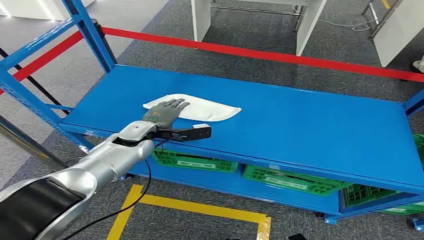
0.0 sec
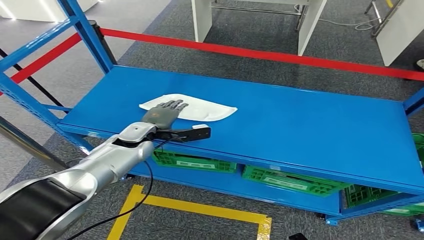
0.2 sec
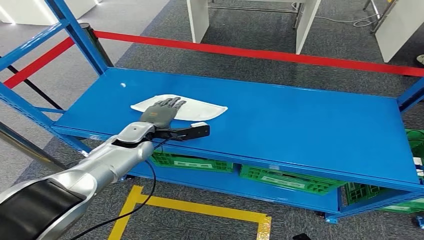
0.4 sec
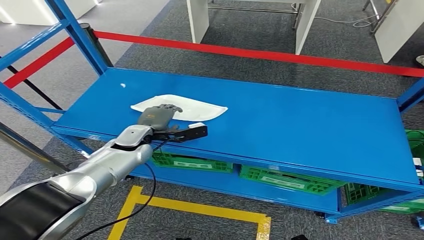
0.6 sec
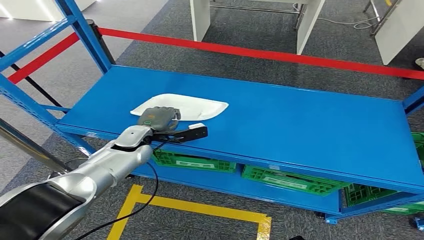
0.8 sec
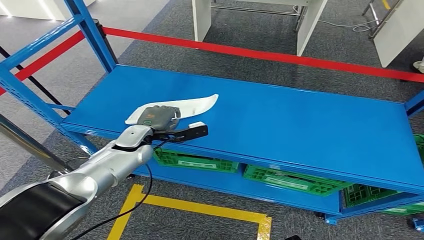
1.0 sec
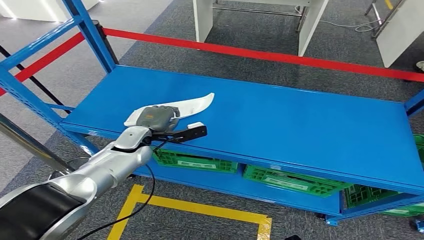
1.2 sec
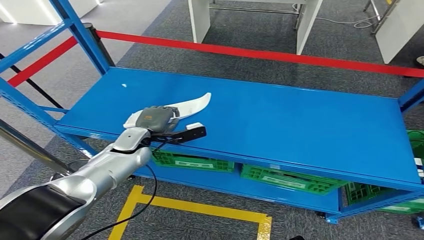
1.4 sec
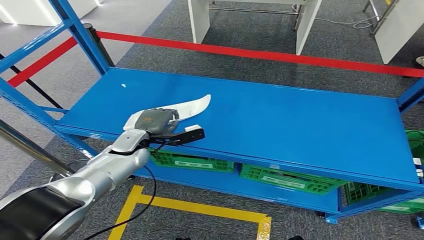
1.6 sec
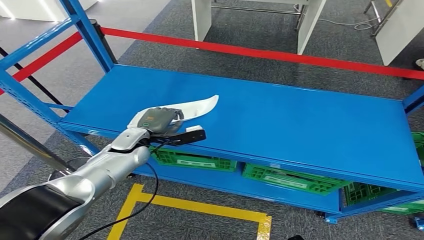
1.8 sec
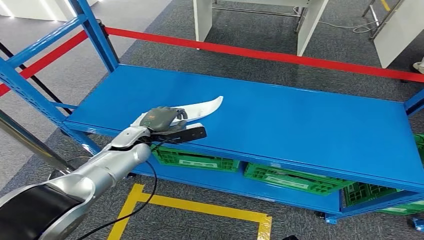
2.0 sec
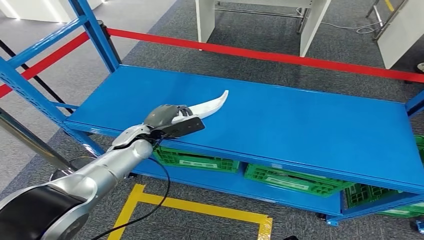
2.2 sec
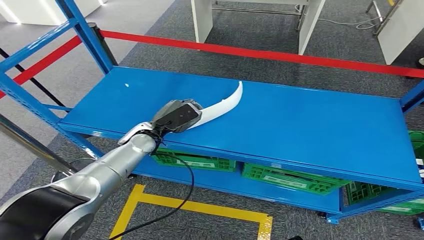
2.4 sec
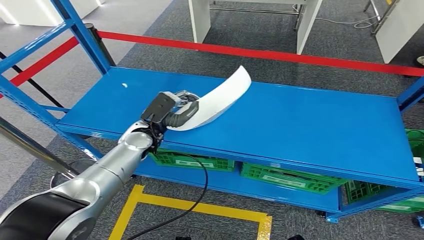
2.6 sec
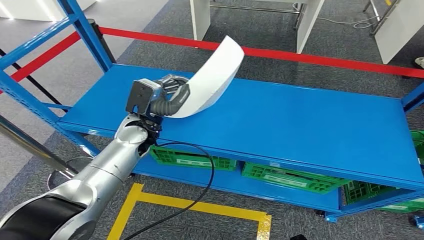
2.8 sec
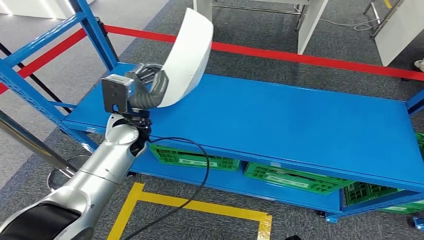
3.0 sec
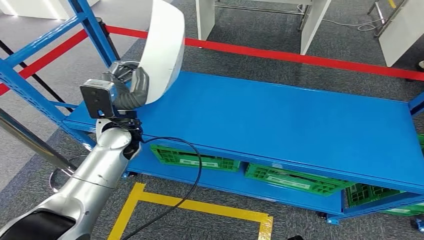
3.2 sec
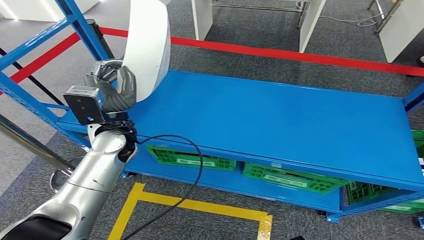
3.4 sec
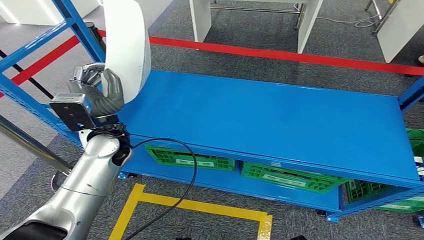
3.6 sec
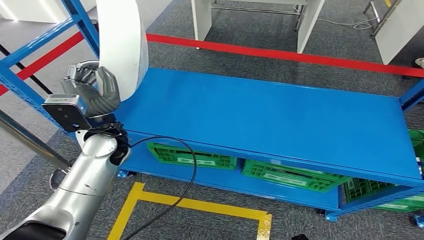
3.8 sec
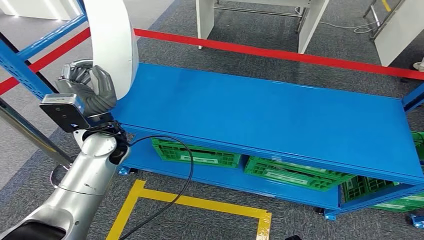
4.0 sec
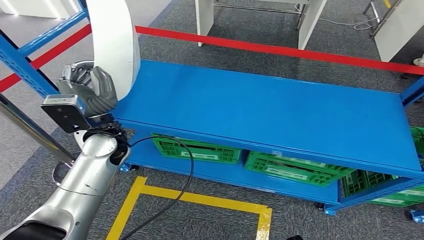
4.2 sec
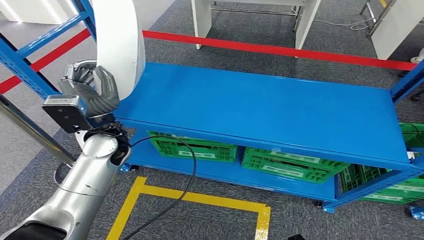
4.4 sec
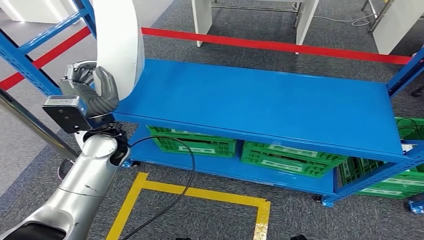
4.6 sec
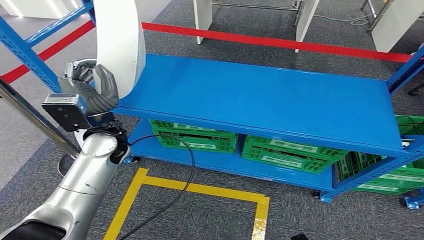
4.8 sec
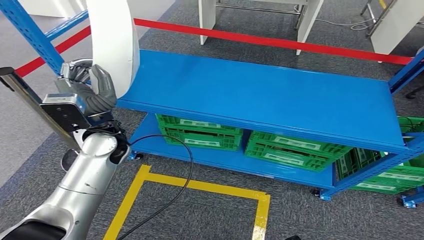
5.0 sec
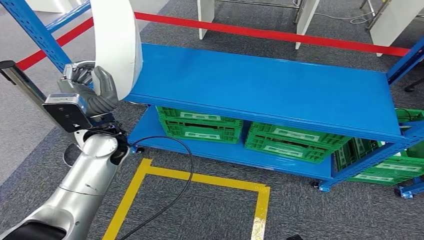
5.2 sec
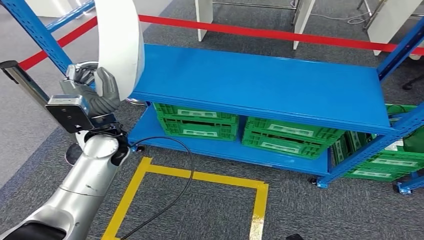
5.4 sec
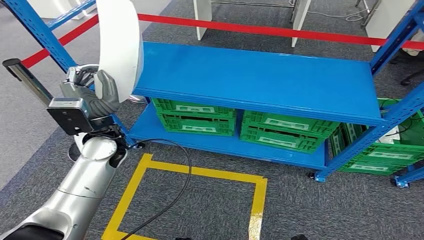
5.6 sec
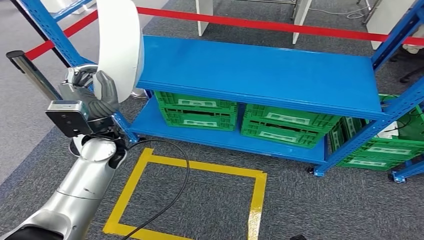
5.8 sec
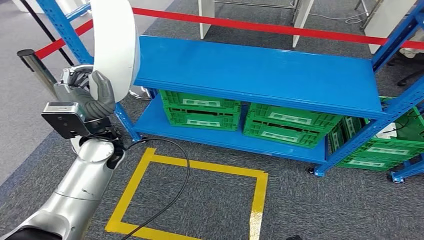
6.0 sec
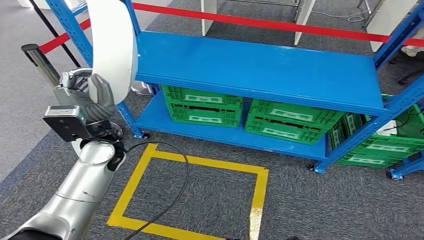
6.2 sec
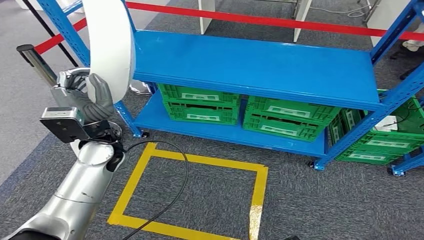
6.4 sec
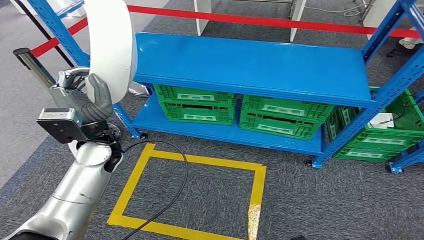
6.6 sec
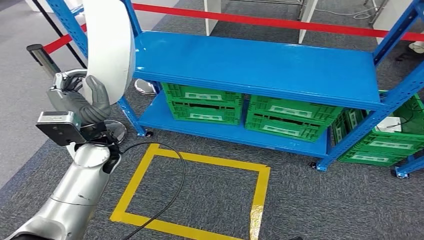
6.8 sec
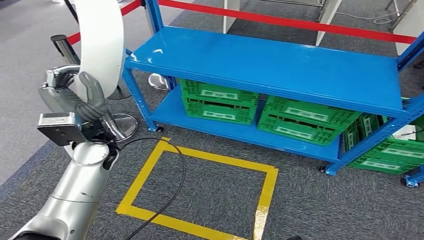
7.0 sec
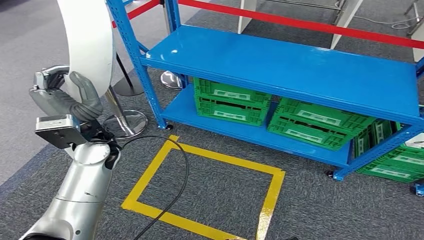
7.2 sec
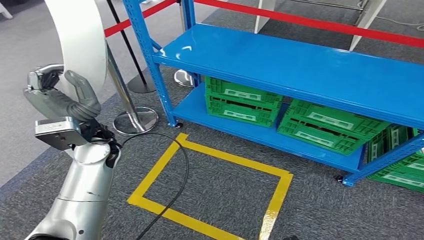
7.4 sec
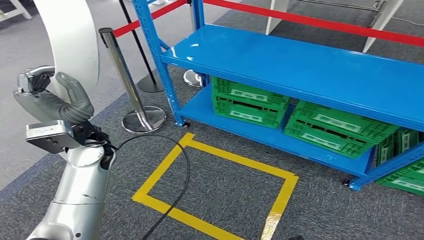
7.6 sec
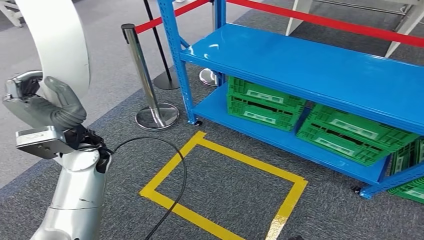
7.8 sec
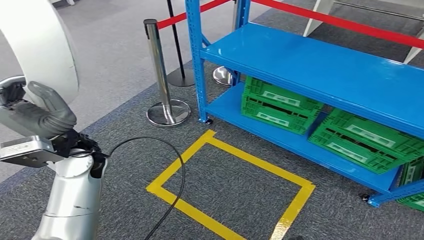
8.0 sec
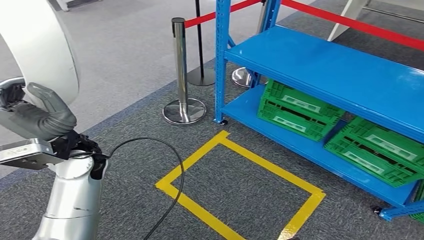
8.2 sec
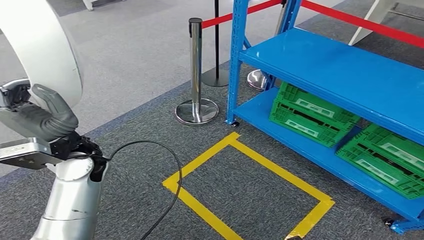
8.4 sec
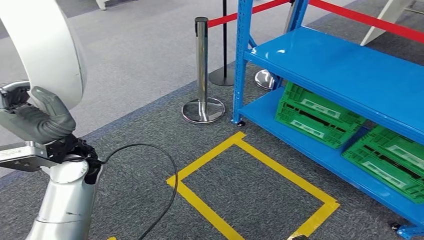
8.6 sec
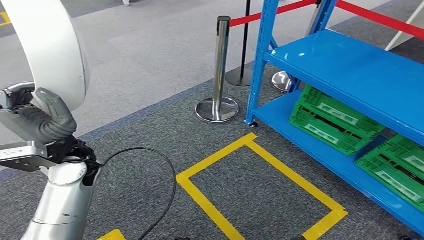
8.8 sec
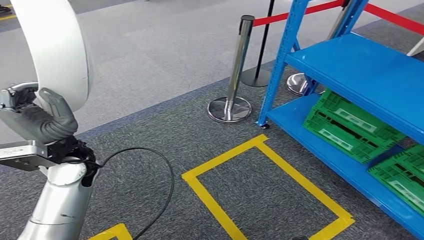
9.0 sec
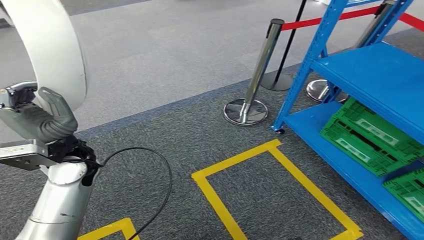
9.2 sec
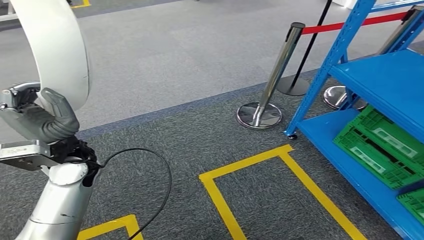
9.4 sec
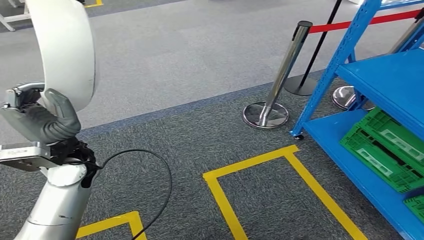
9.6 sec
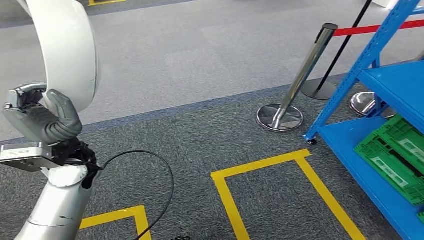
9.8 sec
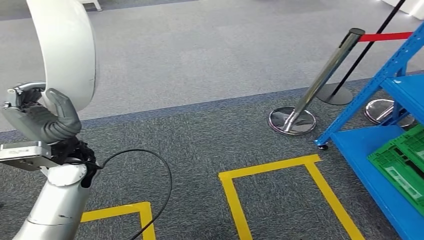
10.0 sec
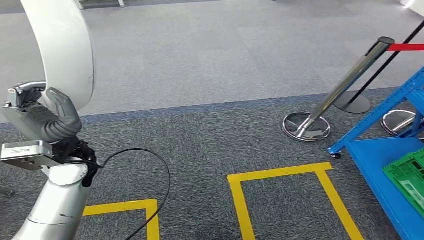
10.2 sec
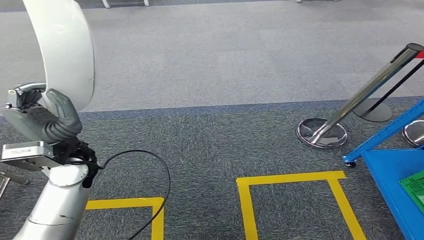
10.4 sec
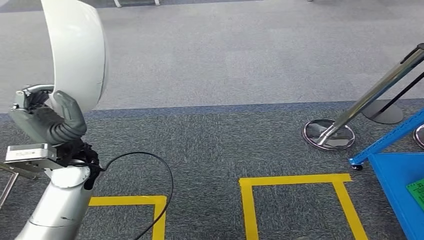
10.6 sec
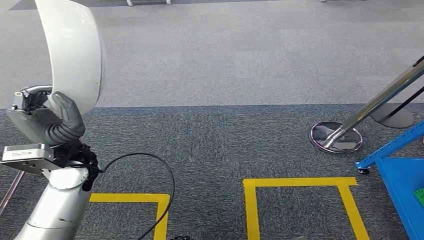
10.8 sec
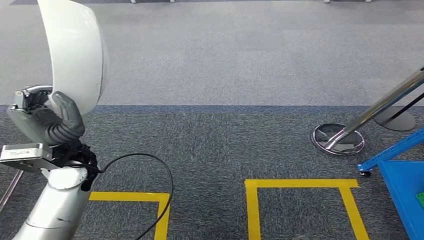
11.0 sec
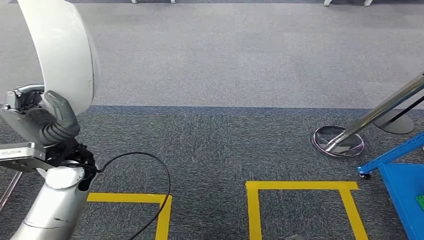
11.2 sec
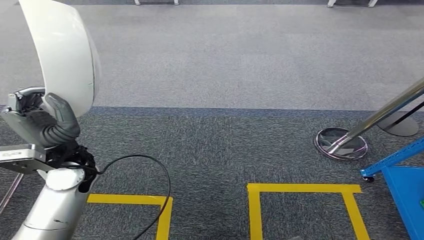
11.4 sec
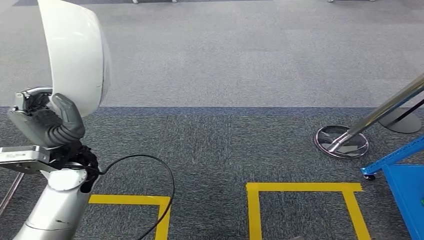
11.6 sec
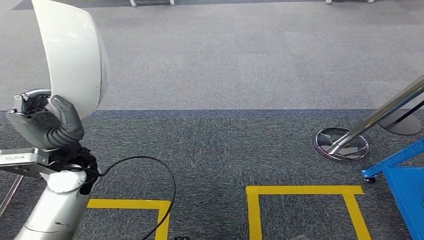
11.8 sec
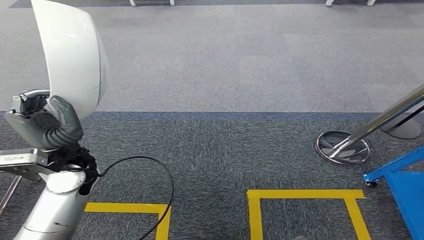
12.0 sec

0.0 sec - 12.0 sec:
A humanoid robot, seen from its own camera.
Step, 0.0 sec - 2.8 sec: Pick up the small component from the shelf.

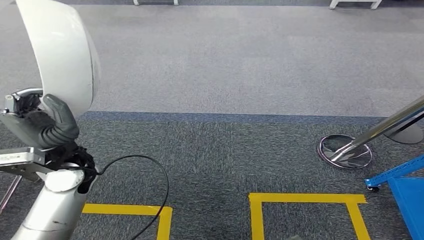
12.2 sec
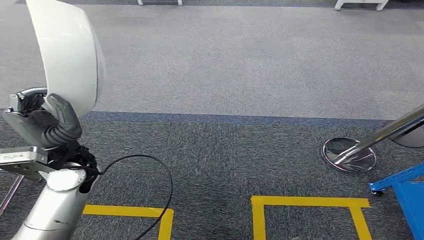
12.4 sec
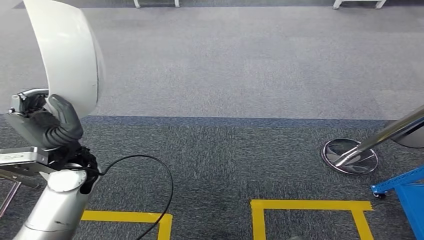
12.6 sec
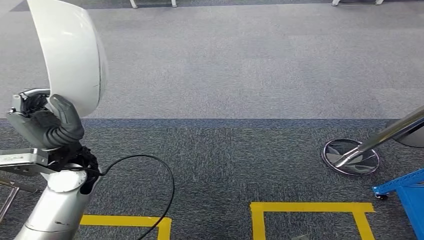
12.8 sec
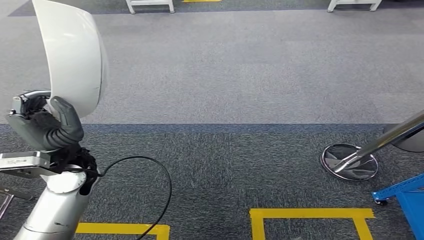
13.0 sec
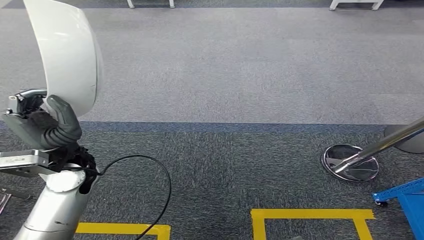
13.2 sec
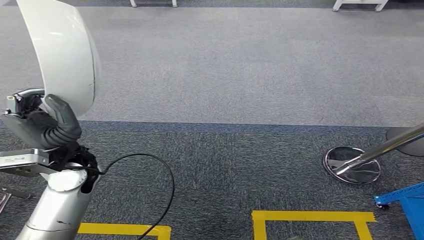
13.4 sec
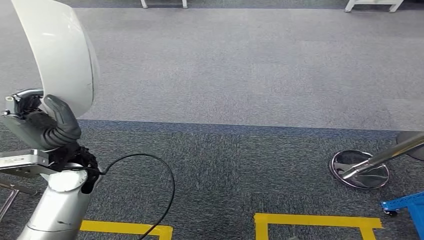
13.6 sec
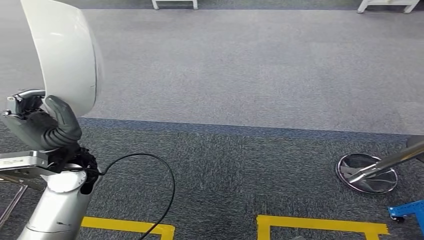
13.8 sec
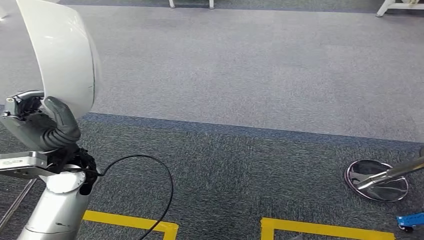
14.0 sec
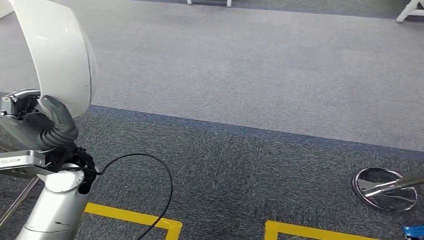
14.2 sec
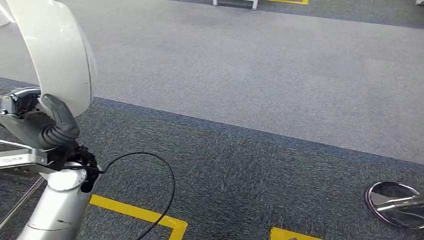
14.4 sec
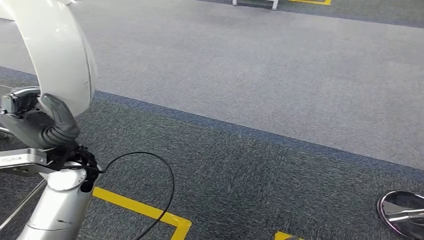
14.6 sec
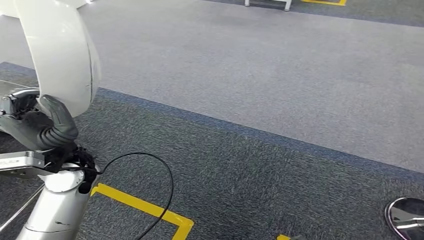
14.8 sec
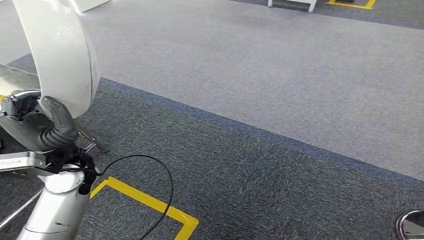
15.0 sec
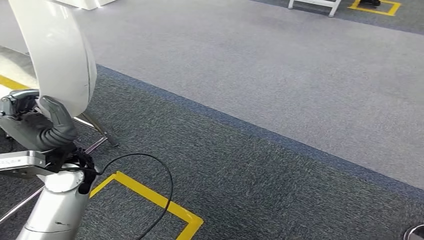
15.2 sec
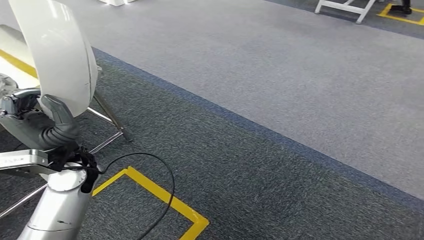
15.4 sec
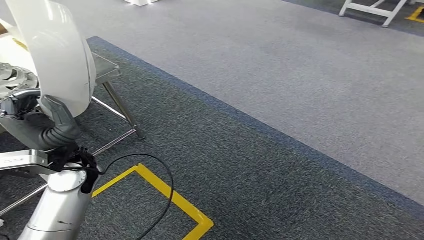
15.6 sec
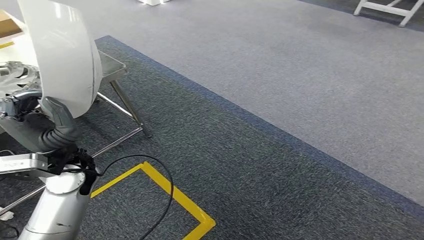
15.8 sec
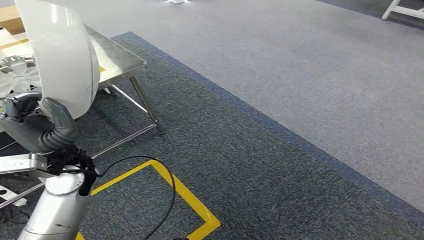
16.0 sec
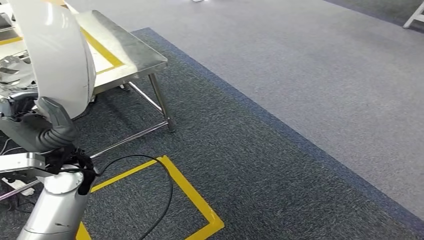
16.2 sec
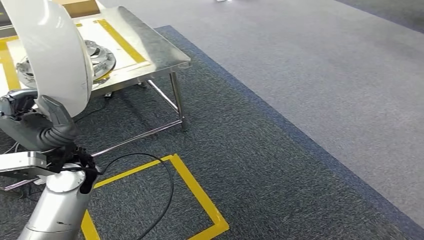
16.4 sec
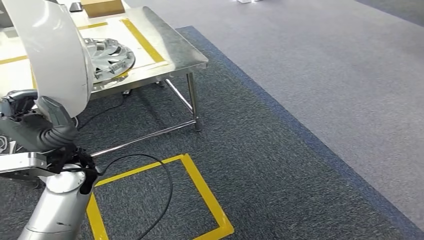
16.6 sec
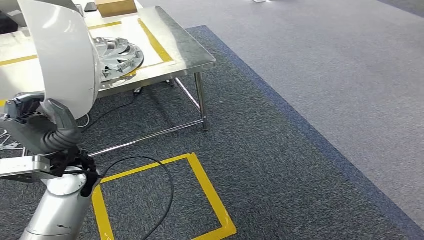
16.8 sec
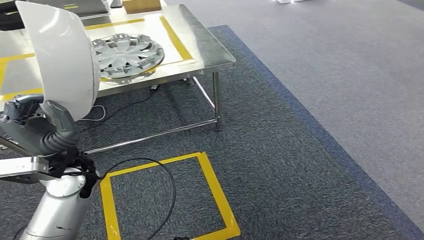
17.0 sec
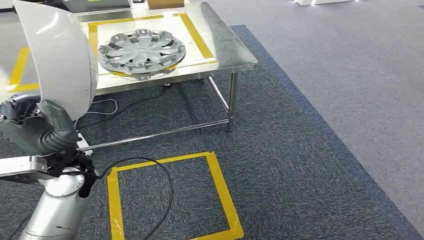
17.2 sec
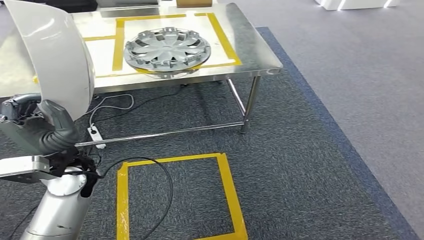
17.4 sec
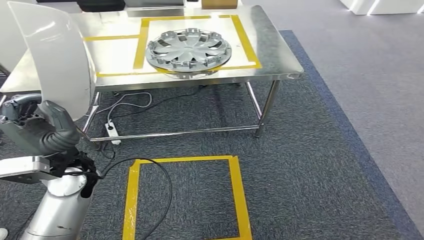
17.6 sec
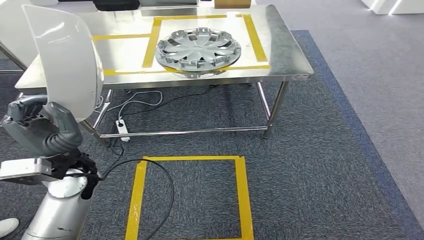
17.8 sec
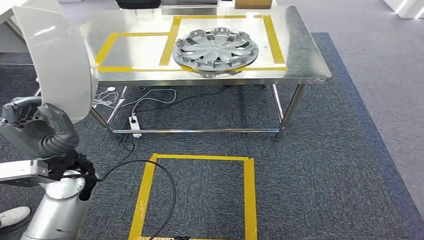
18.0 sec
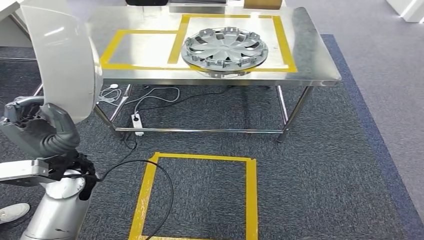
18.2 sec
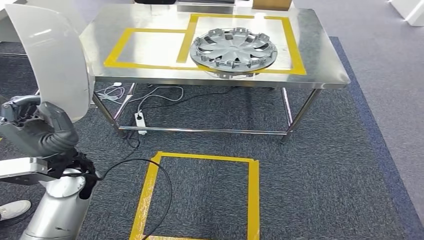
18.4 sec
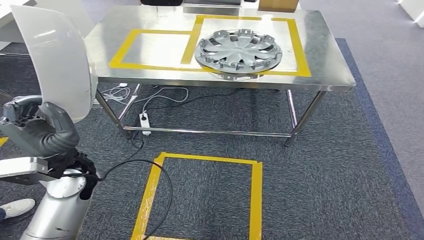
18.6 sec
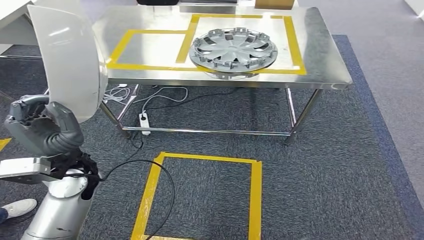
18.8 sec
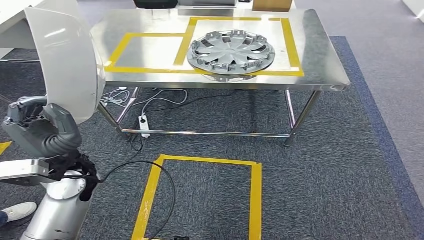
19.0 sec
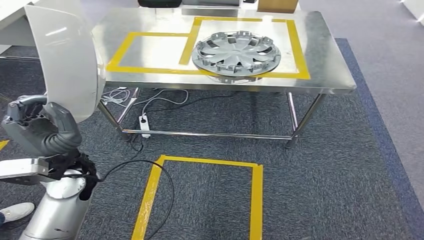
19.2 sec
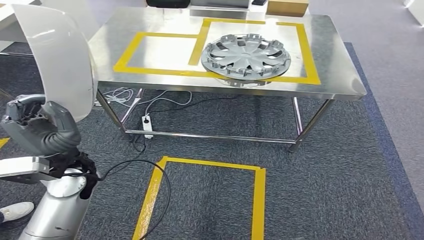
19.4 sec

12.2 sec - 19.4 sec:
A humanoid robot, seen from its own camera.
Step, 12.2 sec - 19.2 sec: Move the small component to the workbench.
12.2 sec - 13.6 sec: Both hands stay about where they are.
